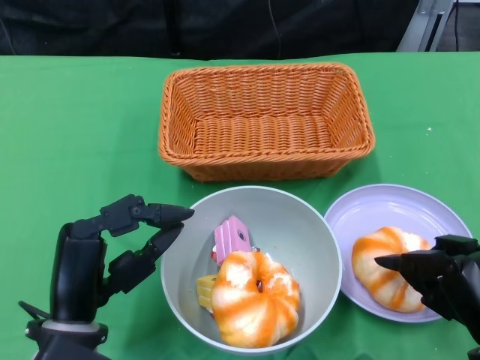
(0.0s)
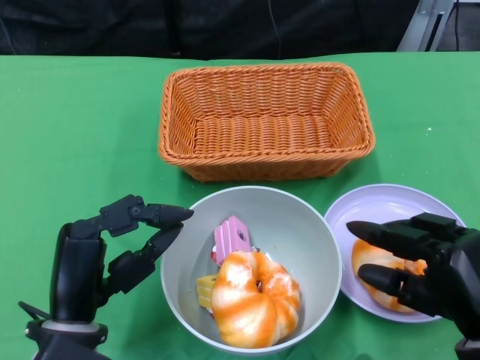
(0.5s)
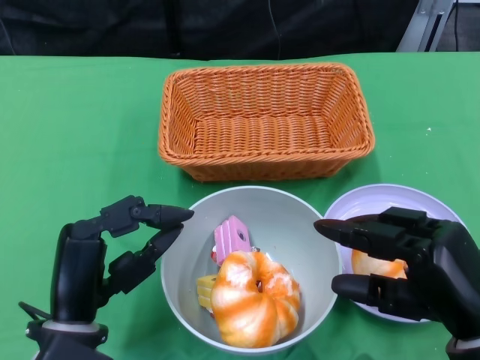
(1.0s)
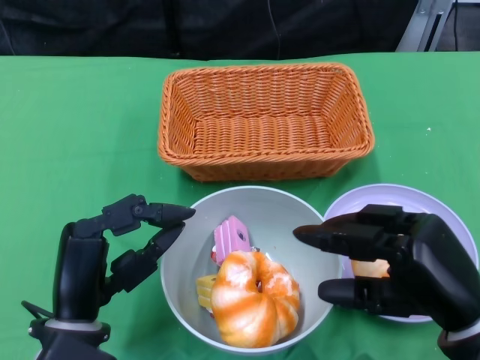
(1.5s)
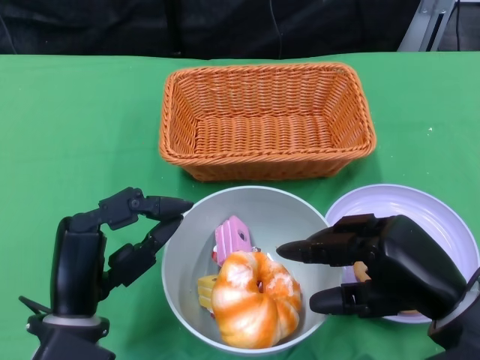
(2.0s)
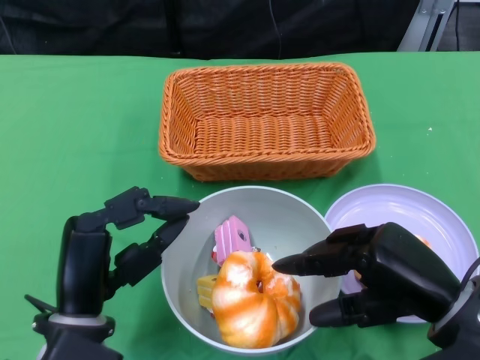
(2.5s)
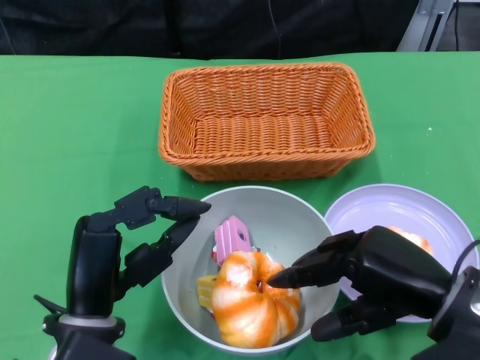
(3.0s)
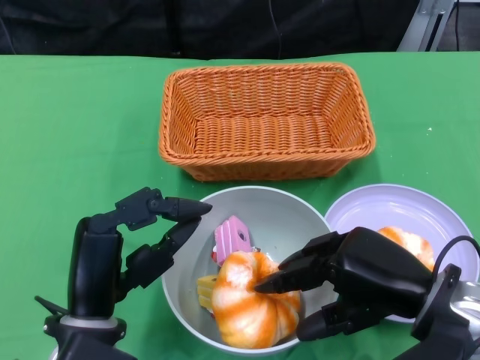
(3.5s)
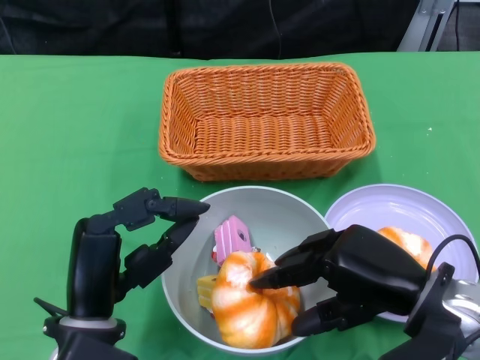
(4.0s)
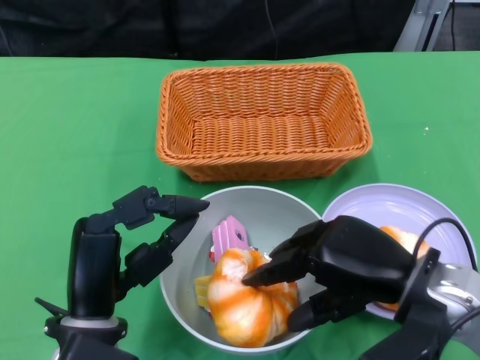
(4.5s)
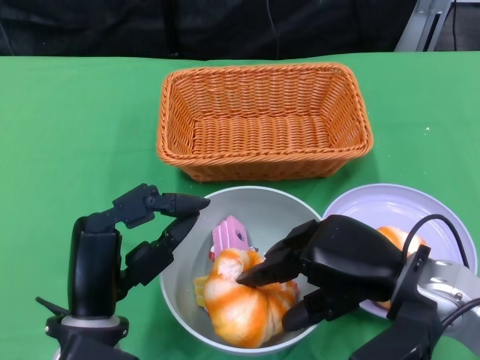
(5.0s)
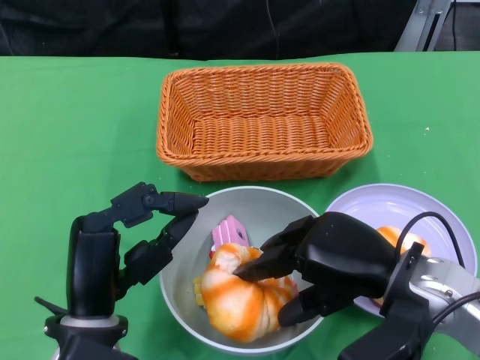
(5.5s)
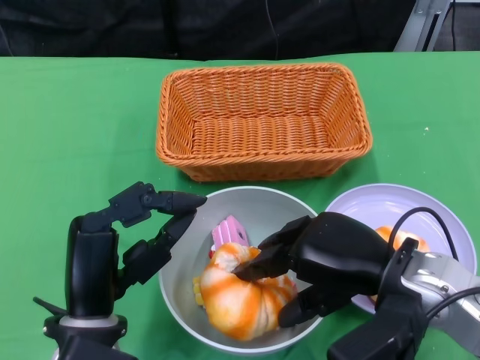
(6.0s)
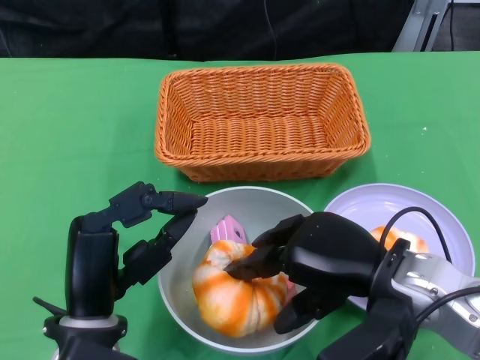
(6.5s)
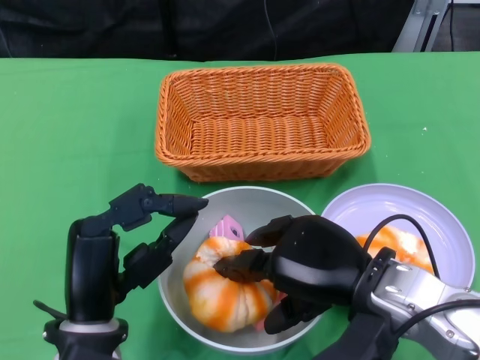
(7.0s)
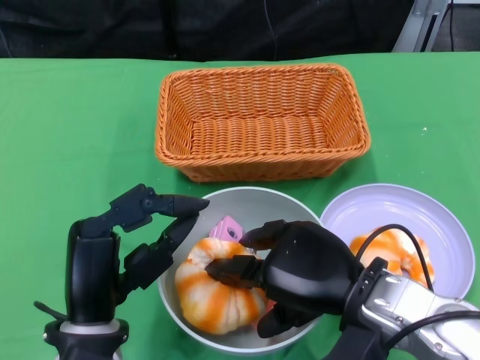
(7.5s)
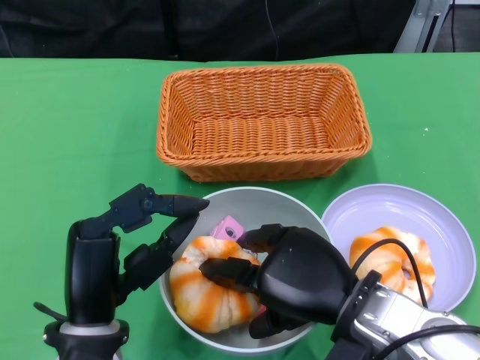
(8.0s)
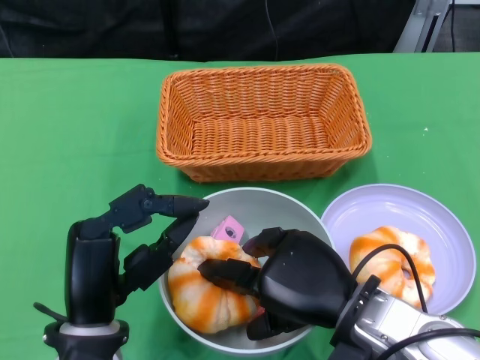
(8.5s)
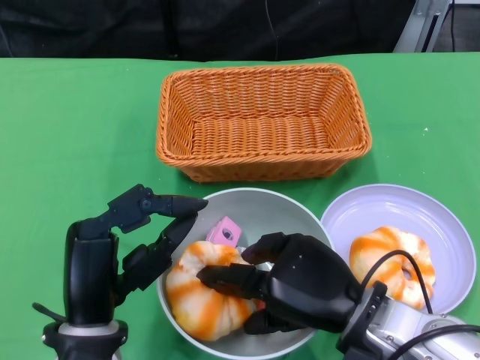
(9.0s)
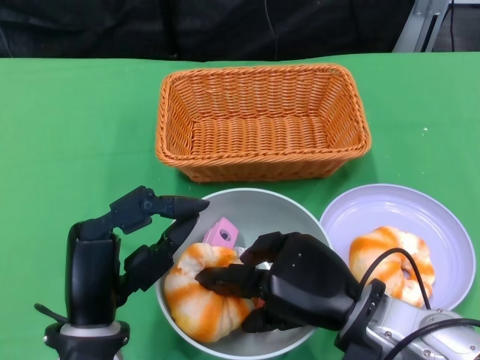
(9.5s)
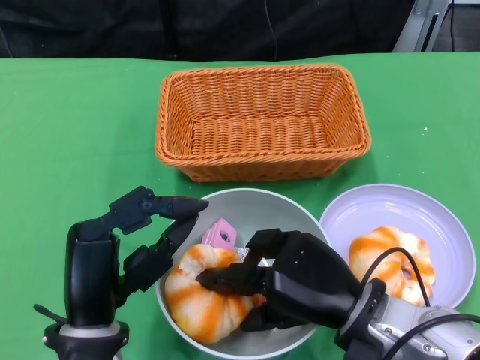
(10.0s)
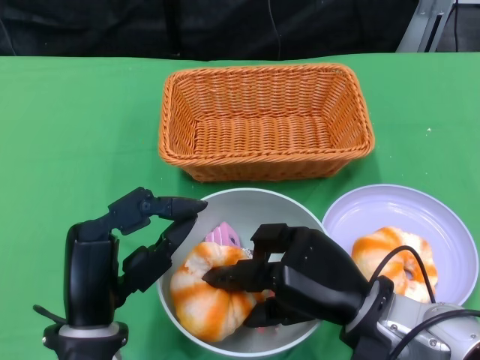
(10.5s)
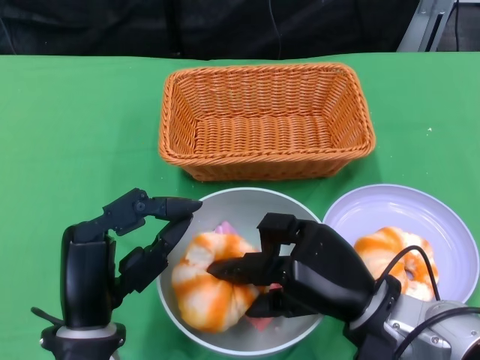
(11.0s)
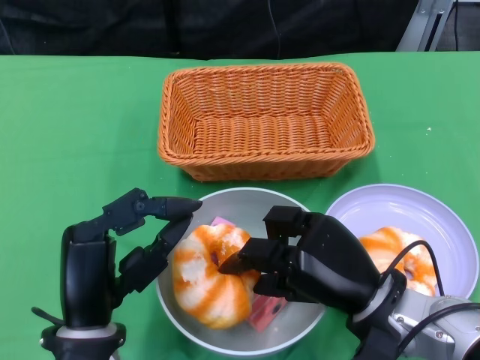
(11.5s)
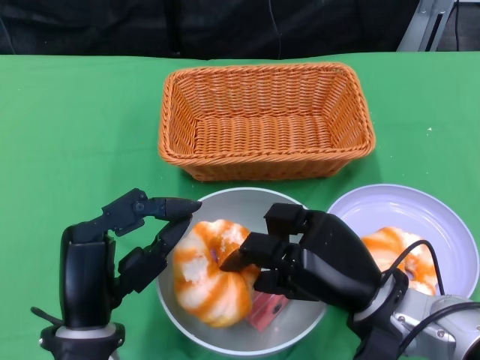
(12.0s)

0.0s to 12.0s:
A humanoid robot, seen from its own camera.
0.0s to 2.0s: The right hand moves upward, approximately 5 cm.
2.0s to 4.0s: The hands make only small movements.
4.0s to 6.0s: There are only small adjustments of the hands.
6.0s to 8.0s: The right hand shifts by approximately 5 cm.
8.0s to 10.0s: The hands move only a little.

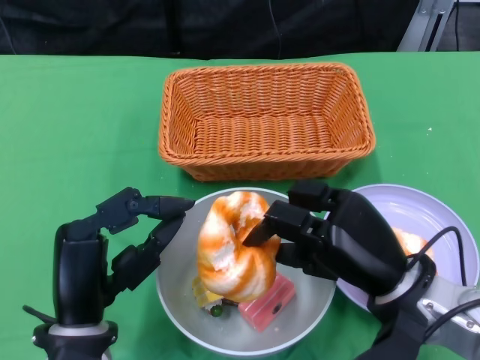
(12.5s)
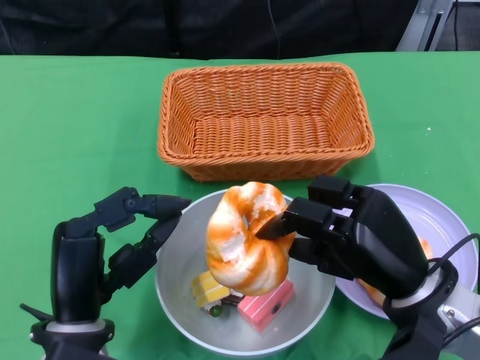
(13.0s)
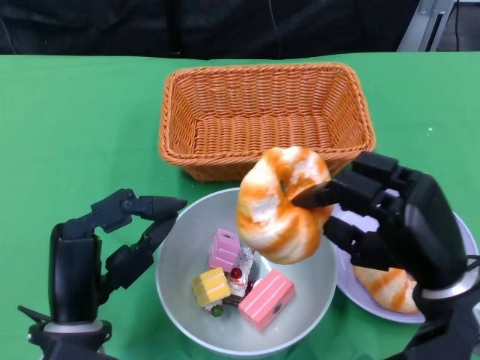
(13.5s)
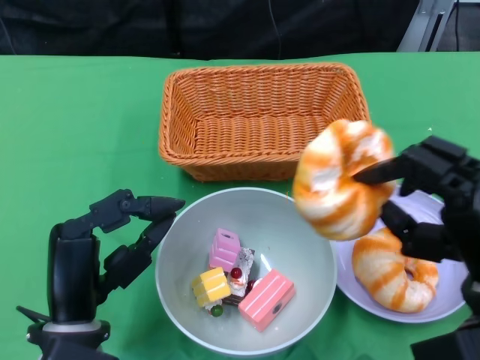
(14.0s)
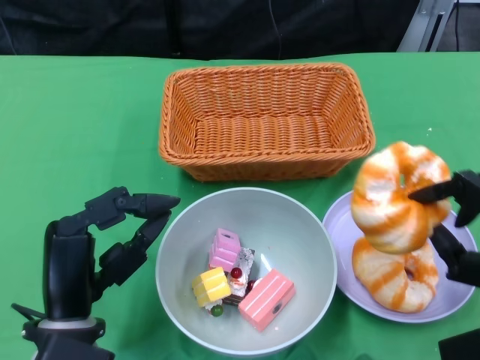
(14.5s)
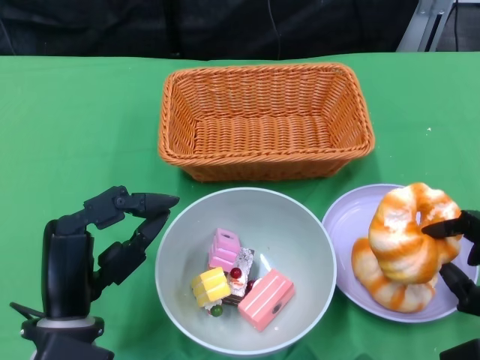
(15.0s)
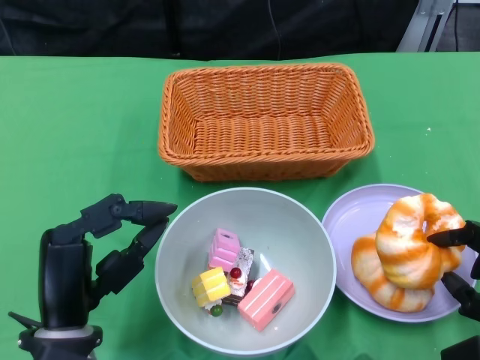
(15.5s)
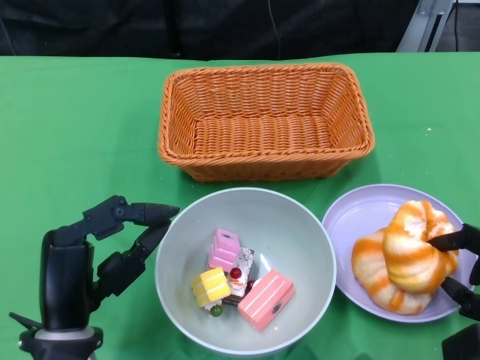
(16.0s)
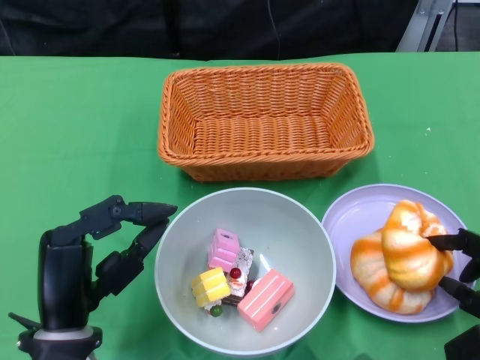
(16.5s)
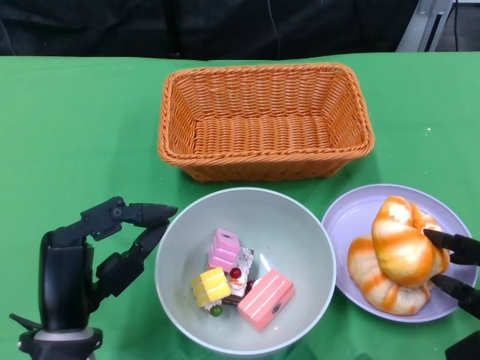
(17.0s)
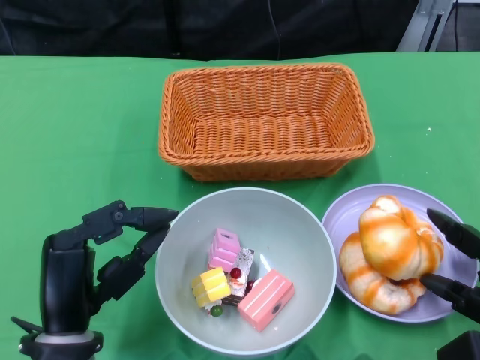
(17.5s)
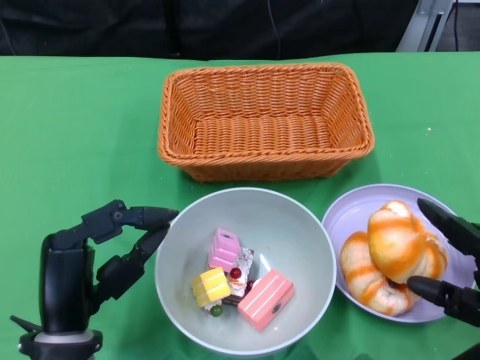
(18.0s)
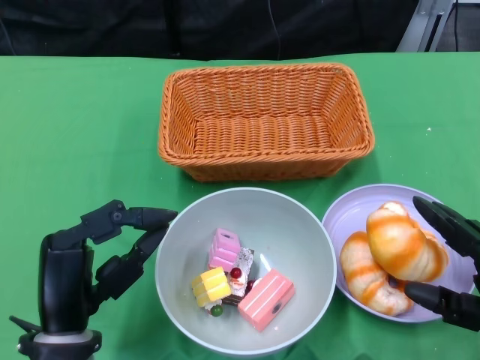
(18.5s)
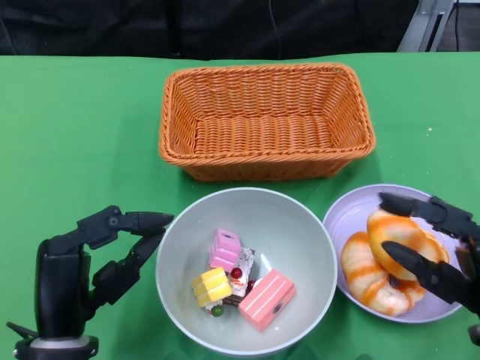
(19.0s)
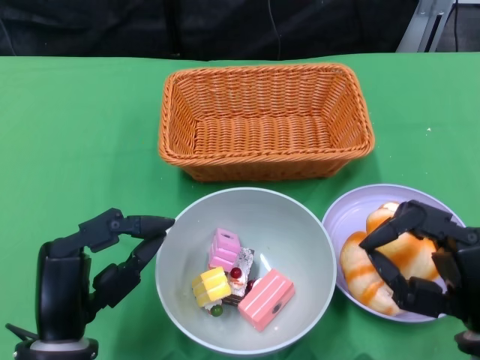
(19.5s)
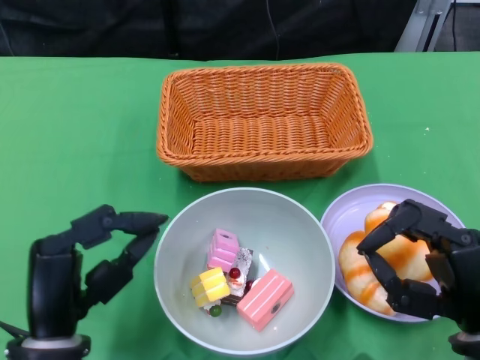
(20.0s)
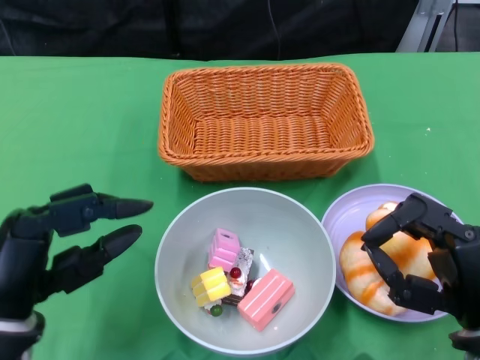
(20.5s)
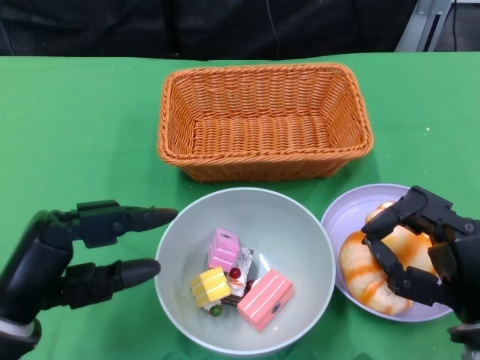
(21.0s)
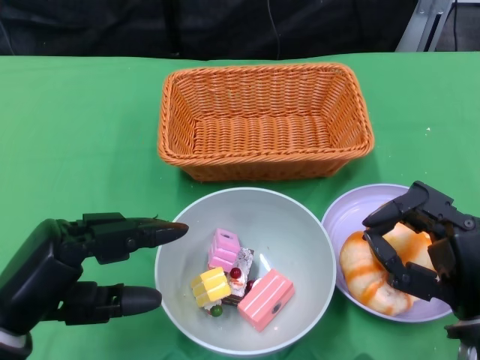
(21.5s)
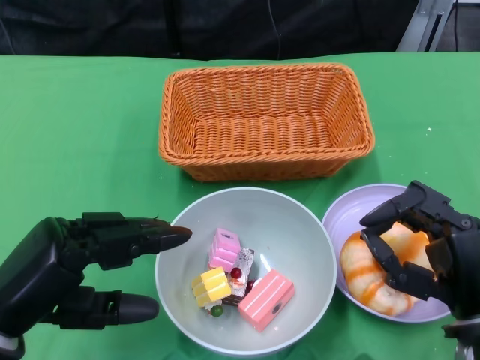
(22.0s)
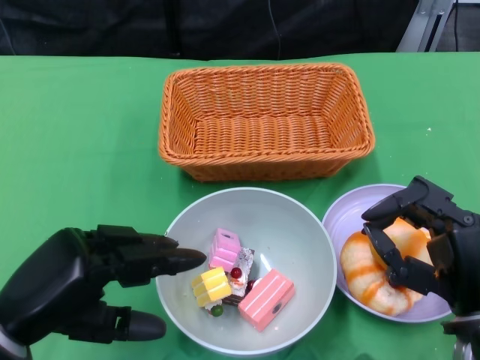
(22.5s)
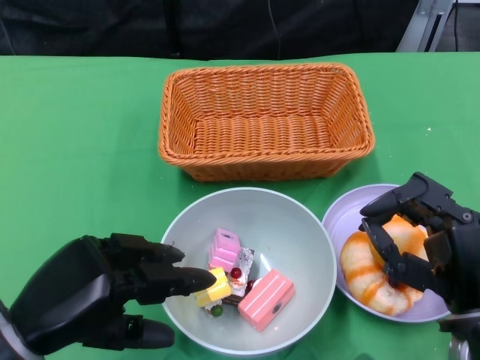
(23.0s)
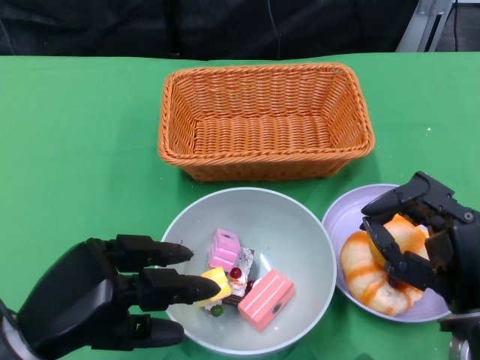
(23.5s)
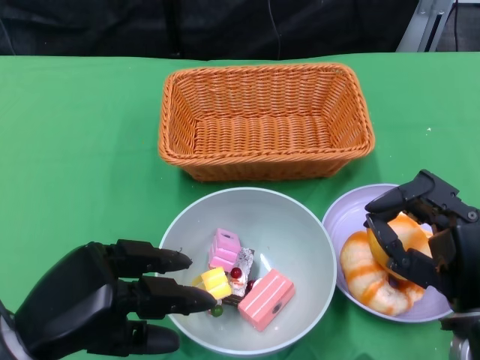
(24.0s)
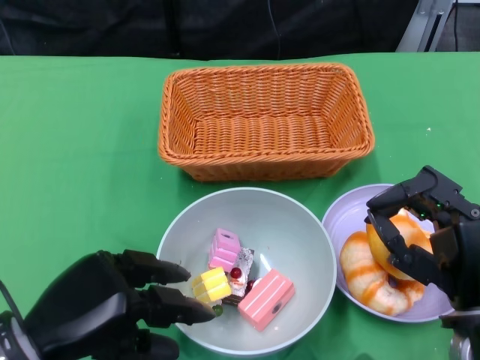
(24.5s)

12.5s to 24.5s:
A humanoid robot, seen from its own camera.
Step, 12.5s to 18.5s: Pick up the bread with the right gripper and place it on the plate.
12.5s to 14.5s: The right hand travels to the right by some 10 cm.
14.5s to 16.5s: The right hand travels downward by approximately 5 cm.
16.5s to 18.5s: The hands stay close to where they were, moving slightly.
18.5s to 20.5s: The left hand moves roughly 5 cm. The right hand changes place by roughly 5 cm.
22.5s to 24.5s: The hands make only small movements.

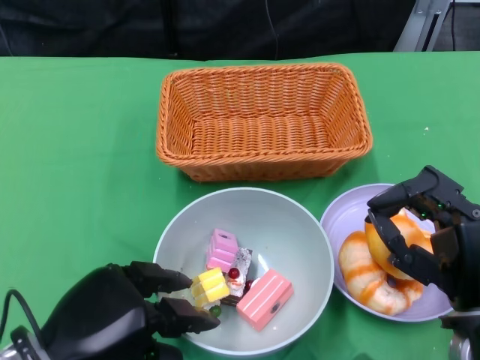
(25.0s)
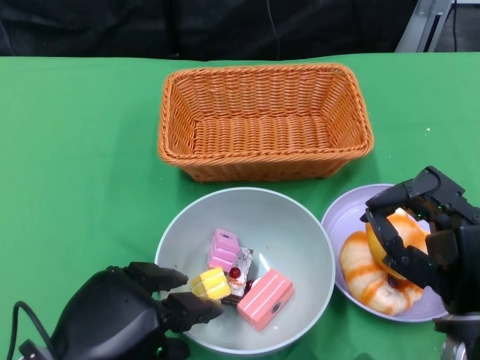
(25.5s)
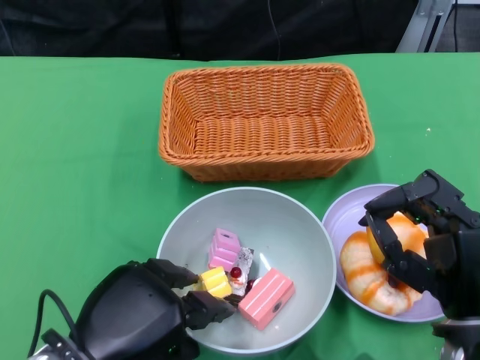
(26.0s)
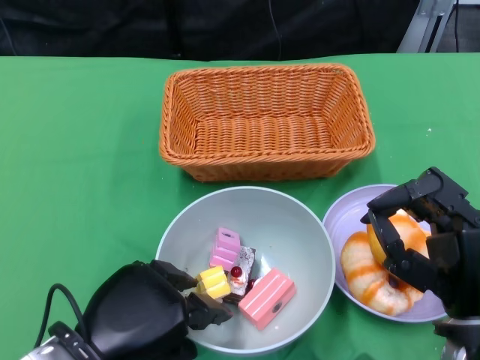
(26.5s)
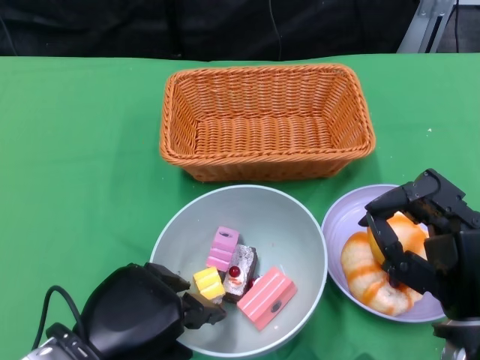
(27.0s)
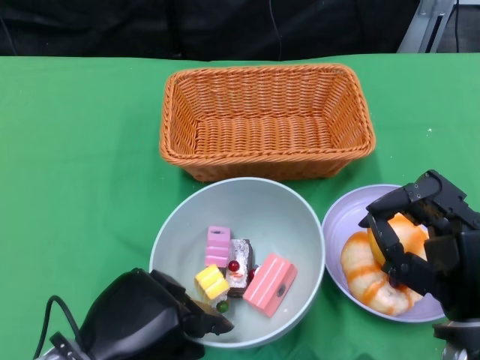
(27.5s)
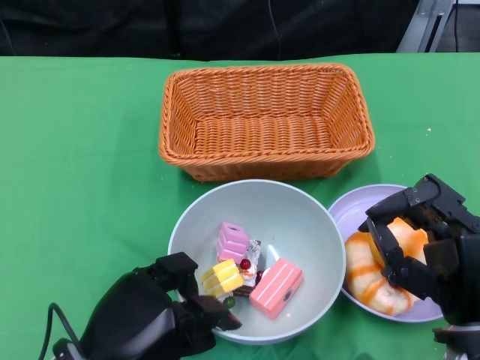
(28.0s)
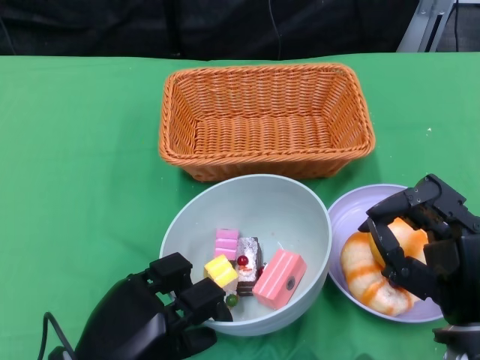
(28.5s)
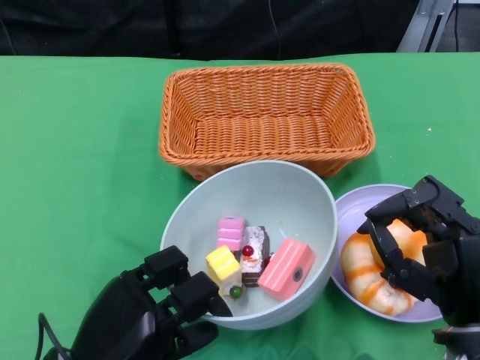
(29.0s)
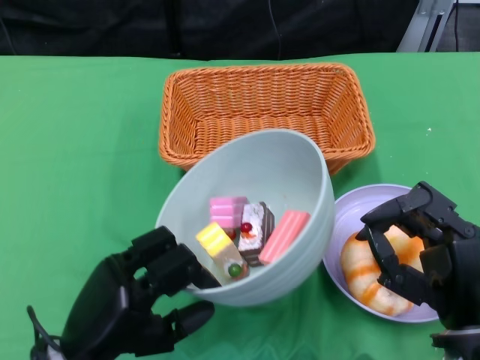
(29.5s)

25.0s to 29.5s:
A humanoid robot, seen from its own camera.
Step, 25.0s to 27.5s: Grasp the bowl with the left gripper.
25.0s to 27.0s: The hands make only small movements.
